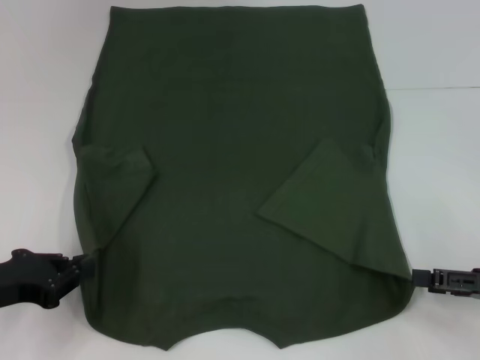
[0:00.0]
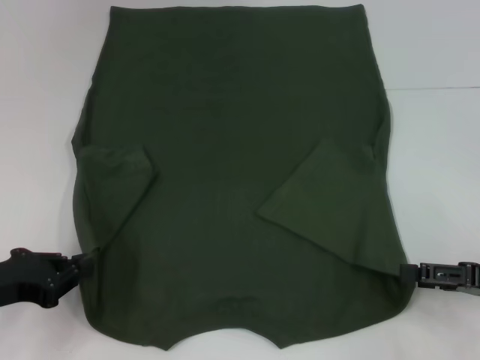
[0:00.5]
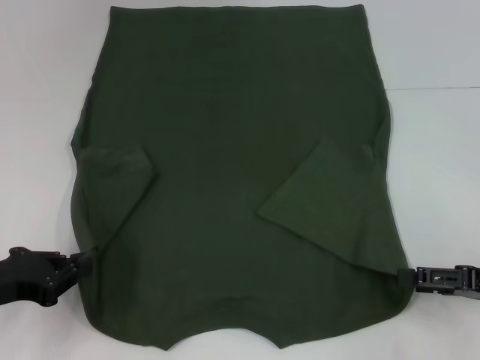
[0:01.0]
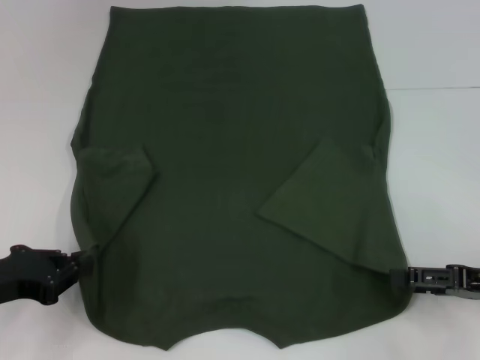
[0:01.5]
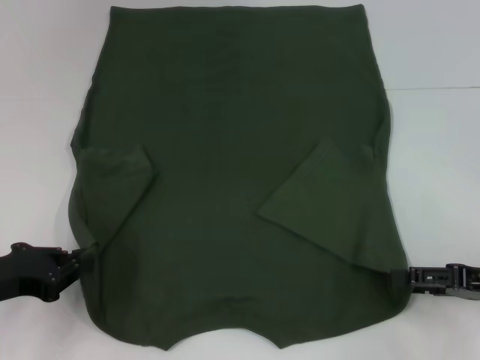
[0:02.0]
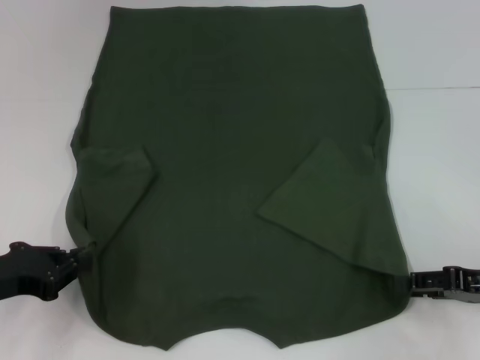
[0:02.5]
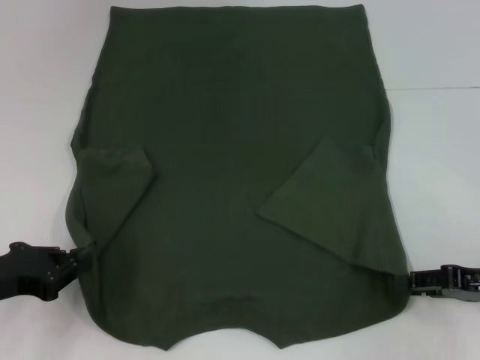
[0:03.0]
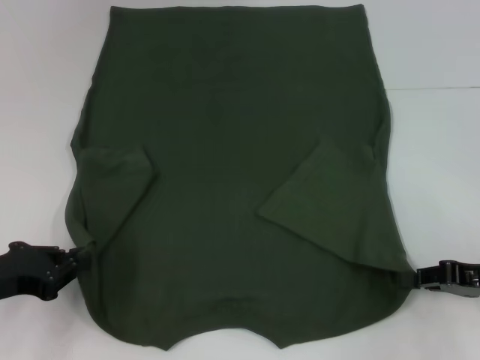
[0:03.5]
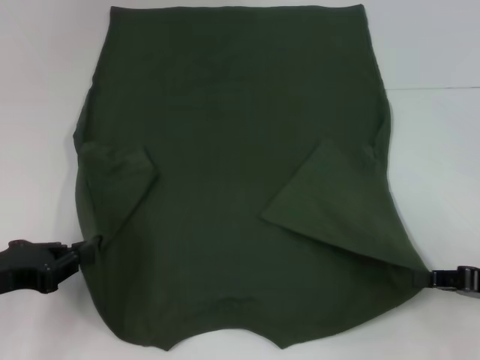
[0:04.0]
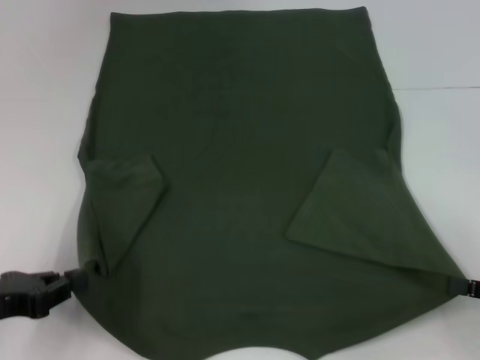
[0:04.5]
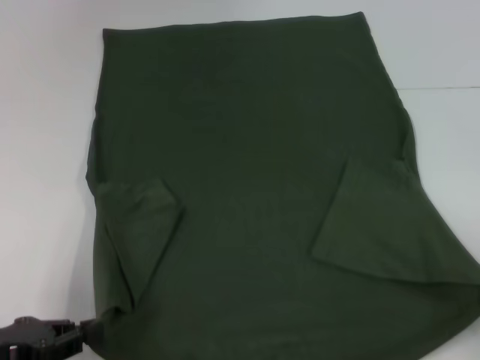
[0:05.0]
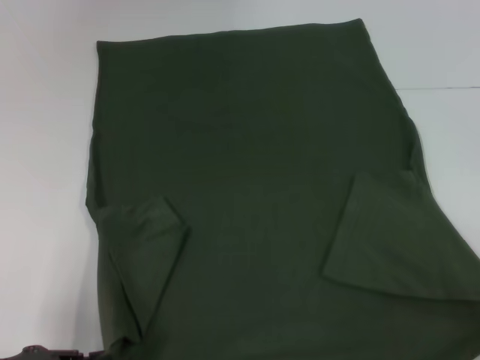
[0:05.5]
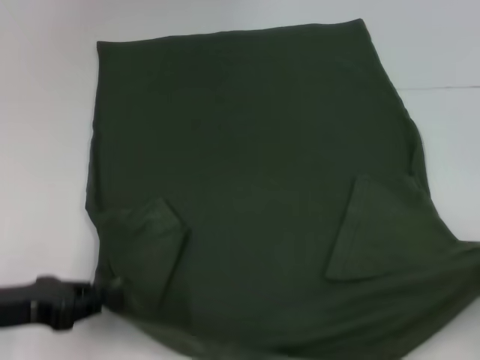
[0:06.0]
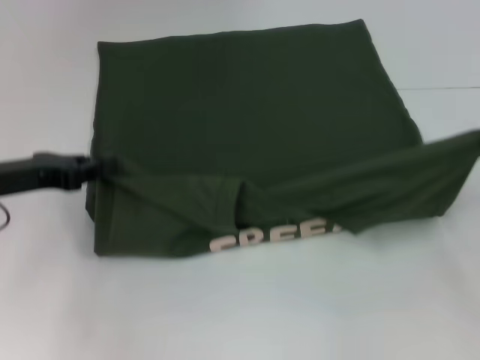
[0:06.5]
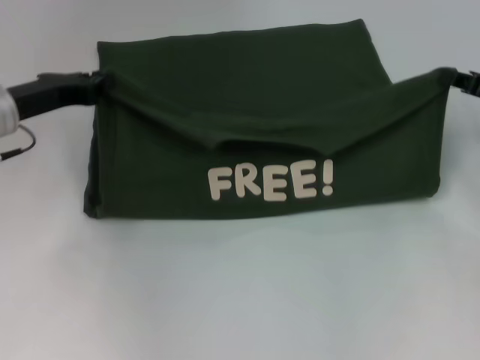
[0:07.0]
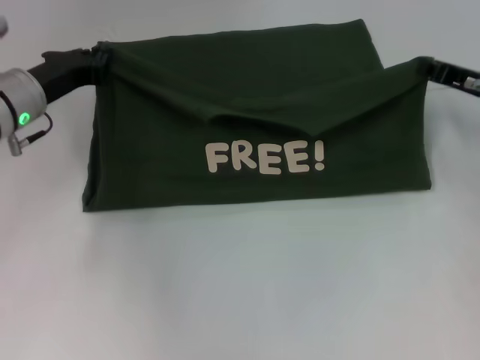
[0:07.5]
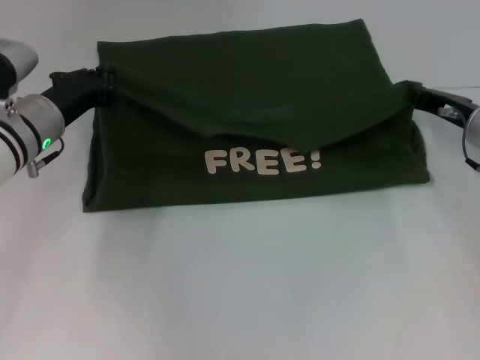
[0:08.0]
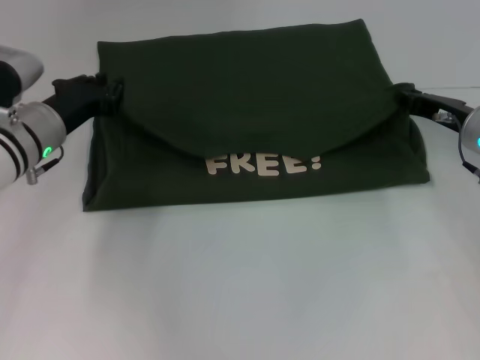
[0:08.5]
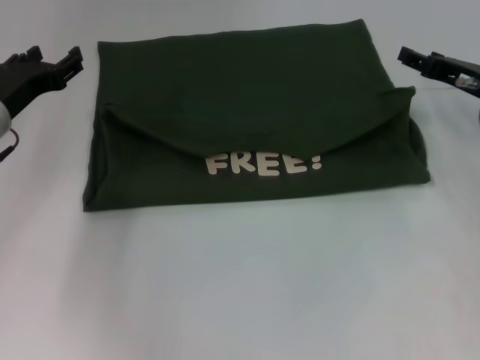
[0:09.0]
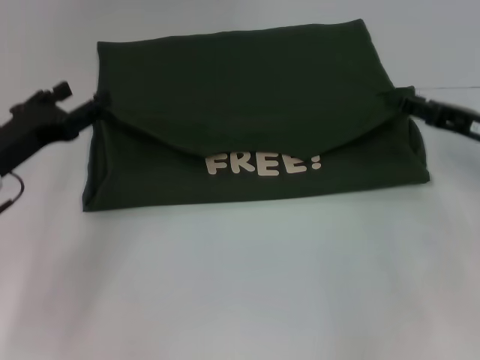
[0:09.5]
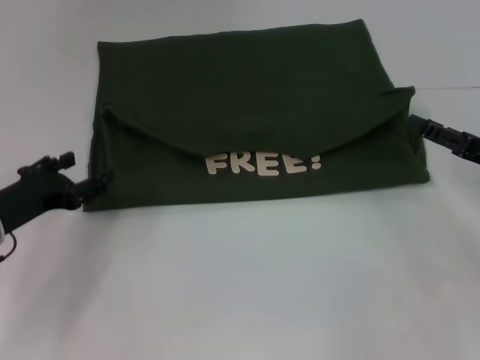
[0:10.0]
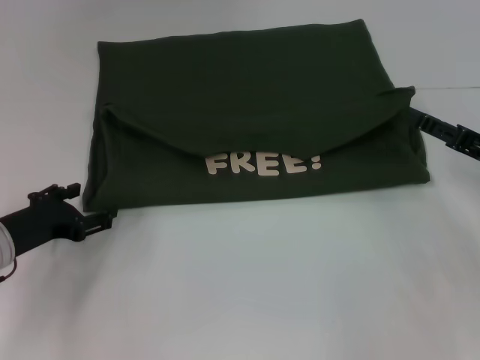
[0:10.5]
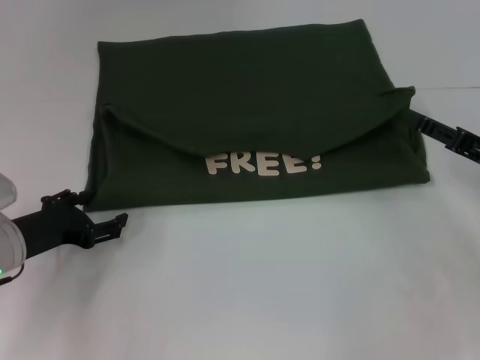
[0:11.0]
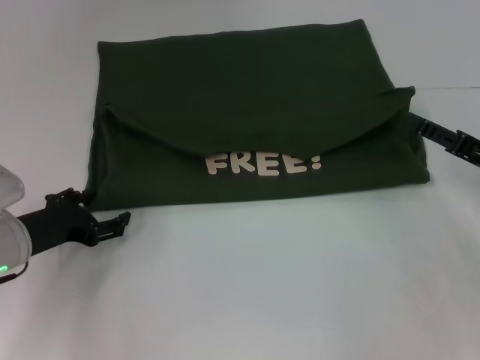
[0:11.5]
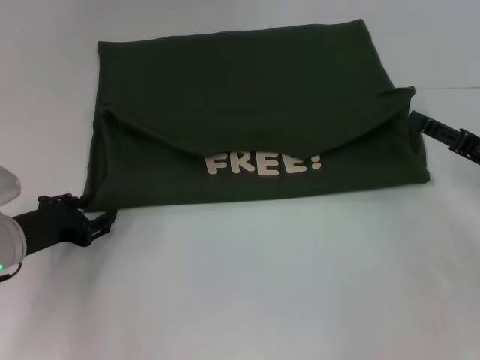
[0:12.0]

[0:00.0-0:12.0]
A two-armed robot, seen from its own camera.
Step, 0:00.0 to 0:03.5: Grab the bottom right corner with your right hand.
Step, 0:04.0 to 0:08.5: Fold the clothes with your left hand.
Step, 0:04.0 to 0:08.5: Fold the clothes with your right hand.
0:00.0 to 0:02.0: The grippers make only small movements.
0:02.0 to 0:04.0: The right gripper closes.
0:04.0 to 0:06.0: The right gripper shifts roughly 10 cm to the right and backward.
0:06.0 to 0:08.0: The left gripper goes some 20 cm forward; the right gripper travels forward and to the left by roughly 25 cm.
0:08.0 to 0:10.0: The right gripper moves backward, some 10 cm, and opens. The left gripper travels backward and to the left by roughly 10 cm, and opens.
0:10.0 to 0:12.0: The grippers stay close to where they were, moving slightly.

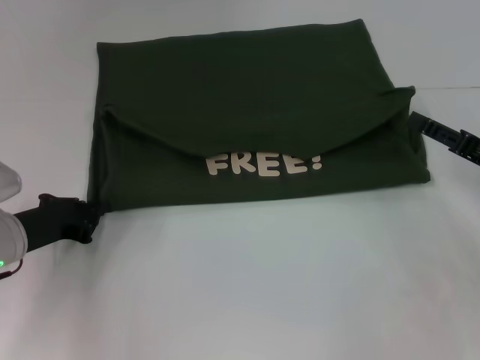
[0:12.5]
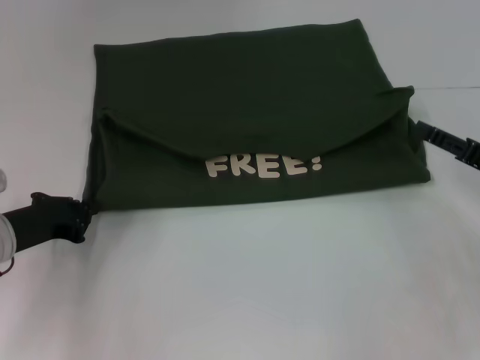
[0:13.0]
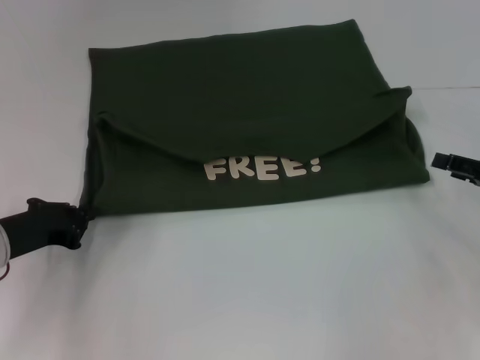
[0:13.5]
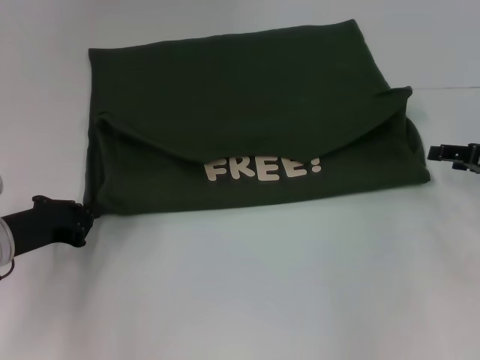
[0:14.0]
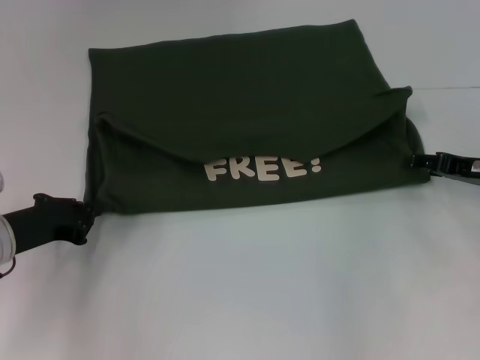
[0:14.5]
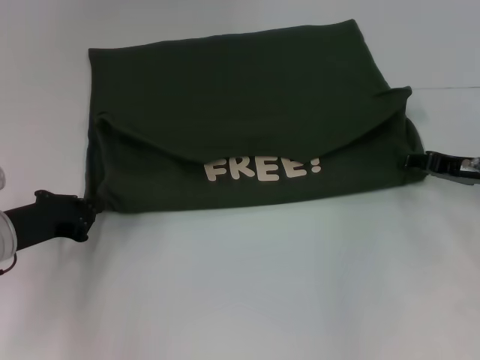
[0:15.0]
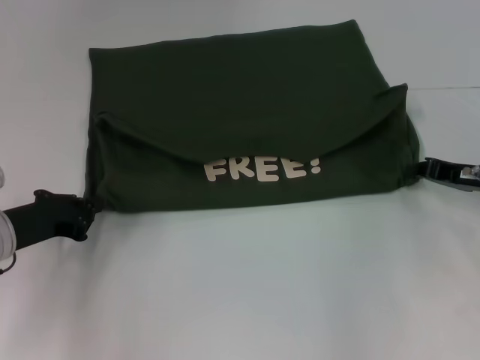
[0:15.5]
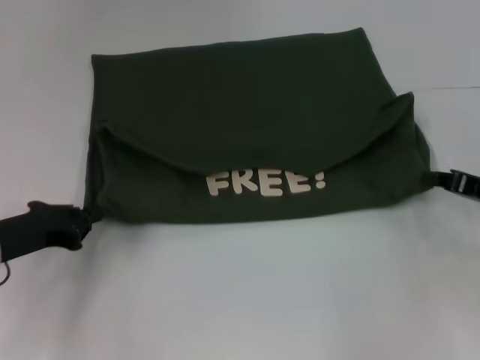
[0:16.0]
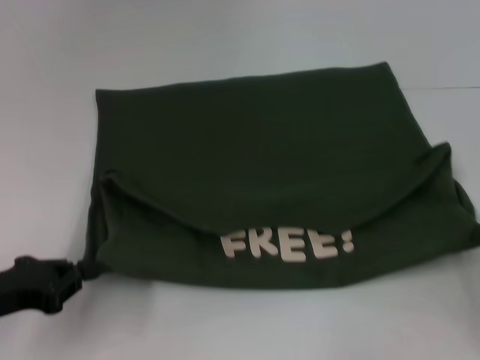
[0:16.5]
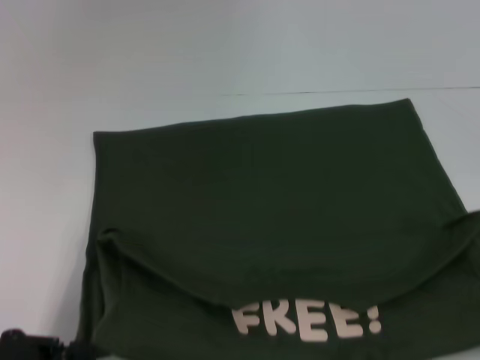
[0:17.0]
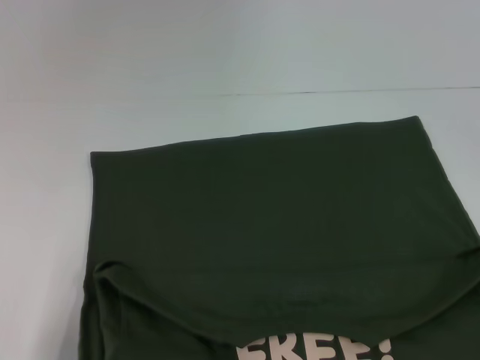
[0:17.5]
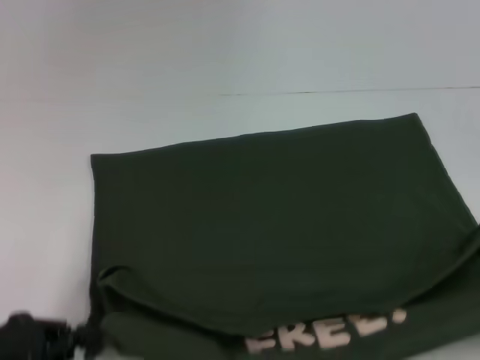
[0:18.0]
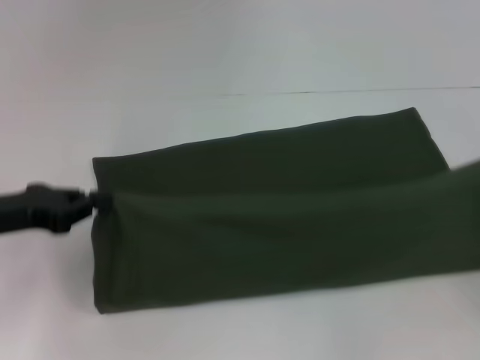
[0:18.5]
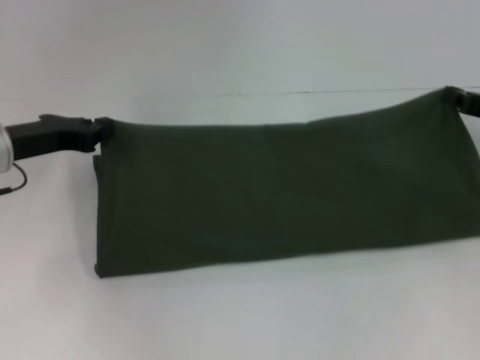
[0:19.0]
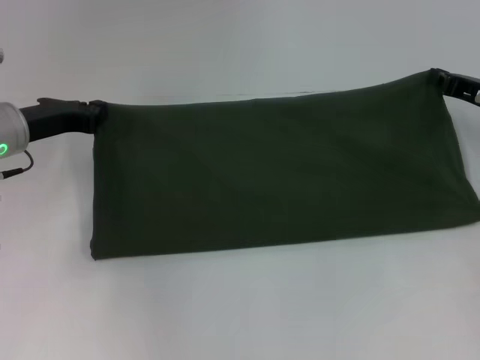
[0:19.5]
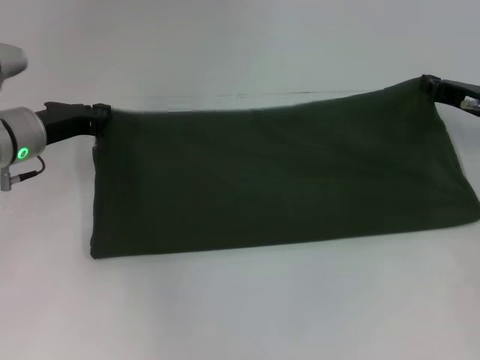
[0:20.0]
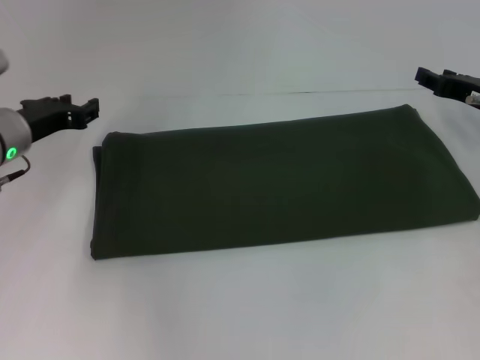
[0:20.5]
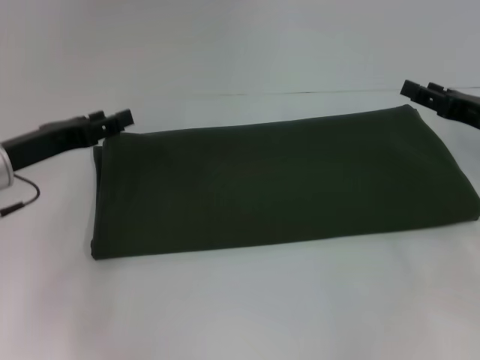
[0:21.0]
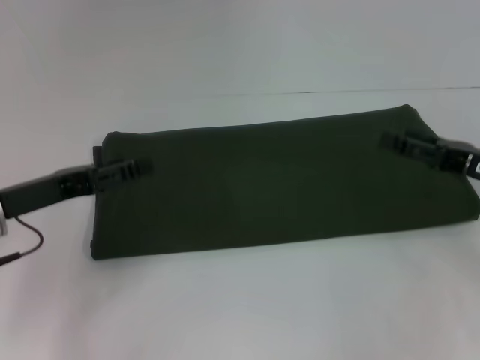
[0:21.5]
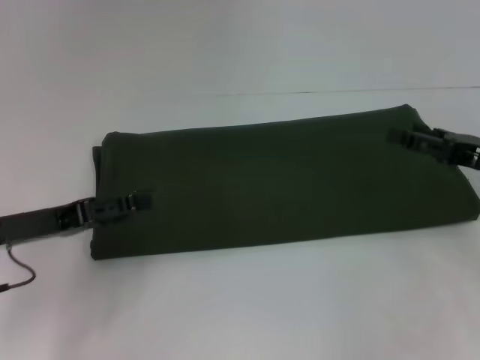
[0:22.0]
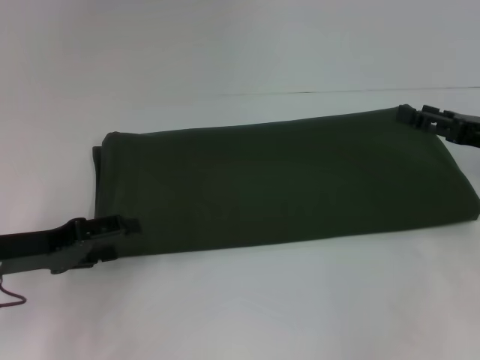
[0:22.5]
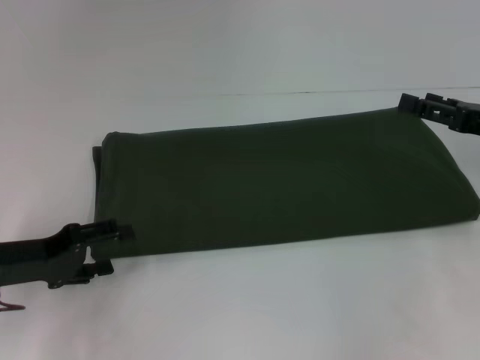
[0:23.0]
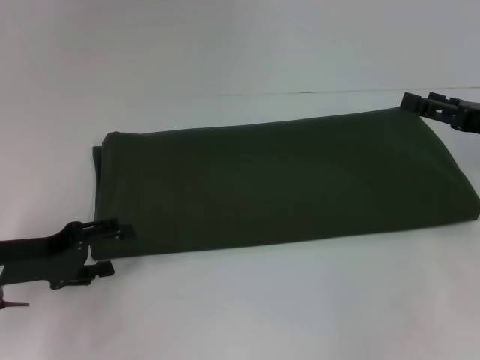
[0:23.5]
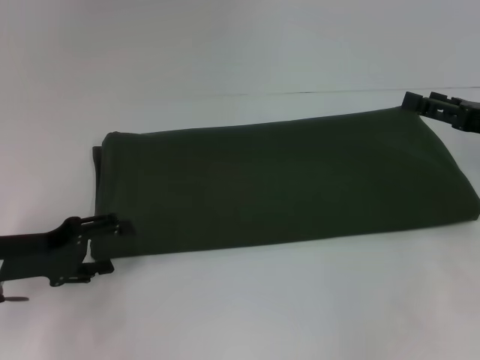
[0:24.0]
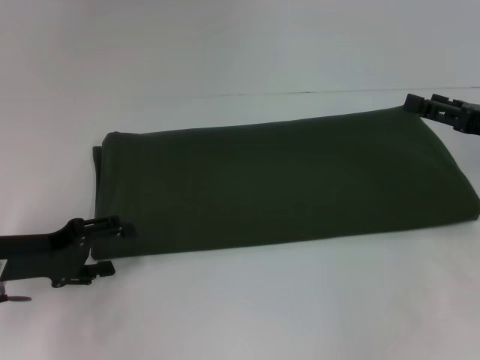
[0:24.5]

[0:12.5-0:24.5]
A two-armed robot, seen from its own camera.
Step, 0:12.5 to 0:17.5: Pull the clothes with your left hand.
Step, 0:12.5 to 0:17.5: Pull the clothes with your right hand.
Step, 0:18.0 to 0:20.0: Fold the clothes with your right hand.
0:12.5 to 0:14.5: The right gripper travels forward by roughly 5 cm.
0:14.5 to 0:16.5: The left gripper heads backward, covering about 10 cm. Meanwhile the right gripper heads backward and to the right, covering roughly 15 cm, and closes up.
0:16.5 to 0:18.5: The left gripper moves forward, approximately 5 cm, while the right gripper moves about 15 cm backward and comes back.
0:18.5 to 0:20.5: The right gripper is displaced forward and to the left by roughly 20 cm, while the left gripper travels forward by roughly 10 cm.
0:20.5 to 0:22.5: The left gripper travels backward by approximately 10 cm, and opens up, while the right gripper shifts about 10 cm backward, and opens its fingers.
0:22.5 to 0:24.5: The grippers stay close to where they were, moving slightly.

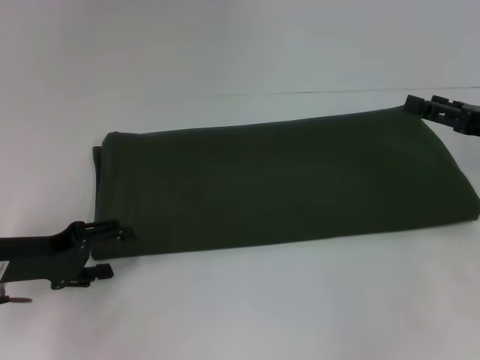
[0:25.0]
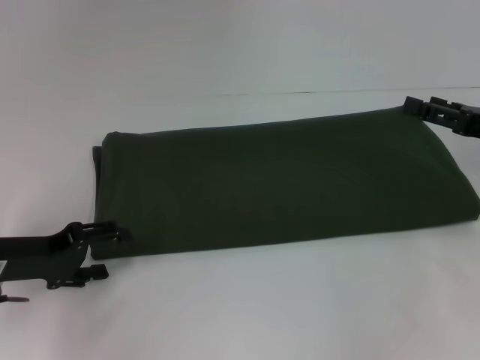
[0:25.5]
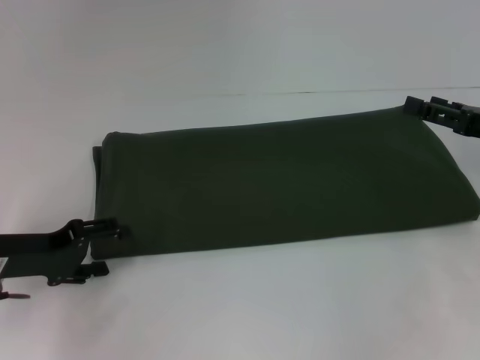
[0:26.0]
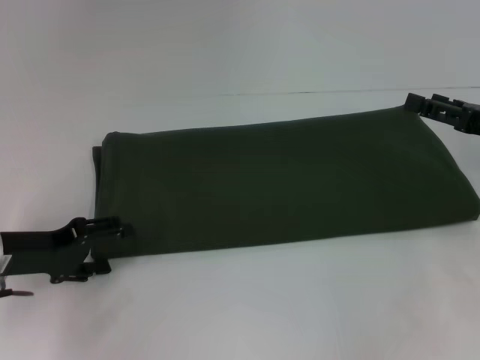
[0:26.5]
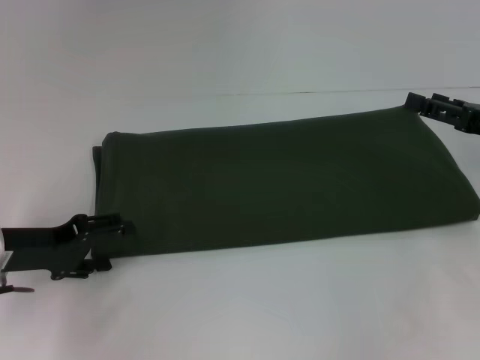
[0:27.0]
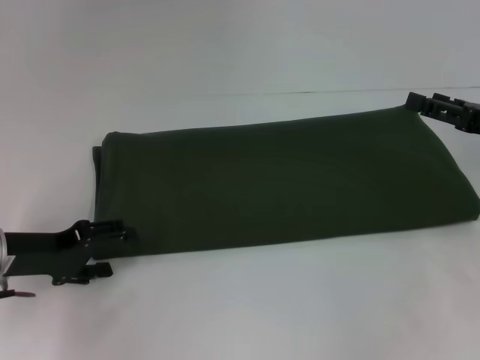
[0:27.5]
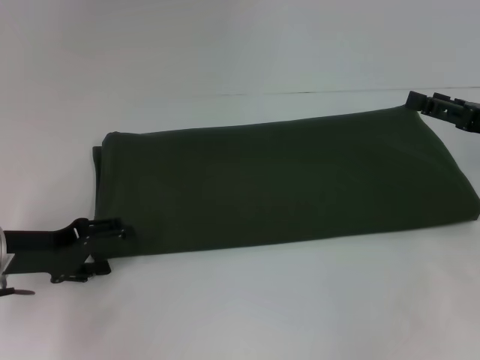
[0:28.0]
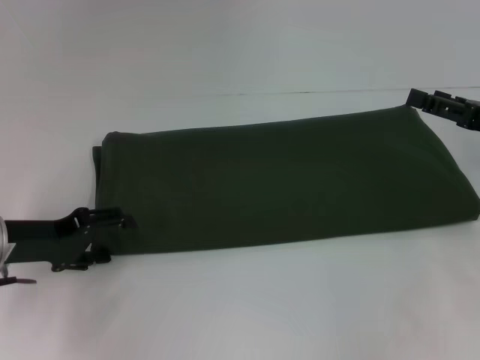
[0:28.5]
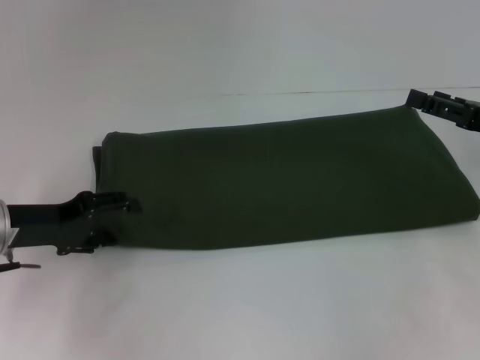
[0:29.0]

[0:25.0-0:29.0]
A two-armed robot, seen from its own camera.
0:25.0 to 0:27.0: Both grippers stay put.
0:27.0 to 0:29.0: There are only small adjustments of the grippers.
